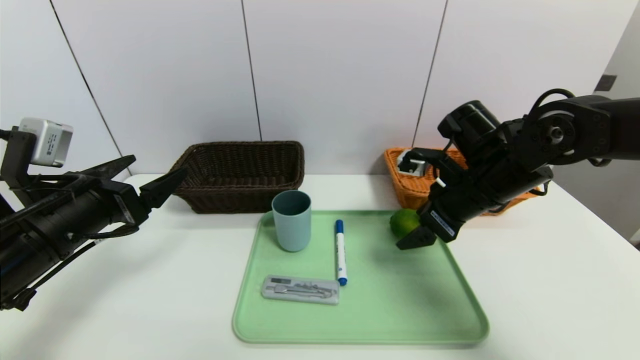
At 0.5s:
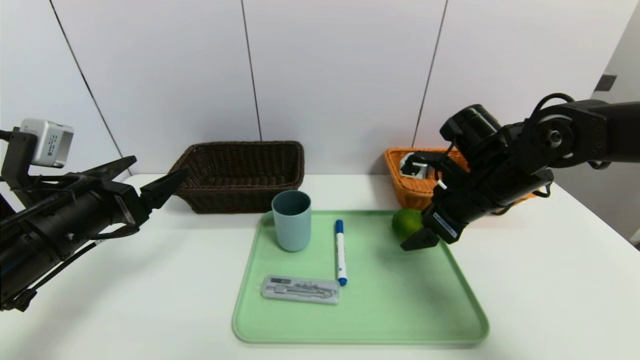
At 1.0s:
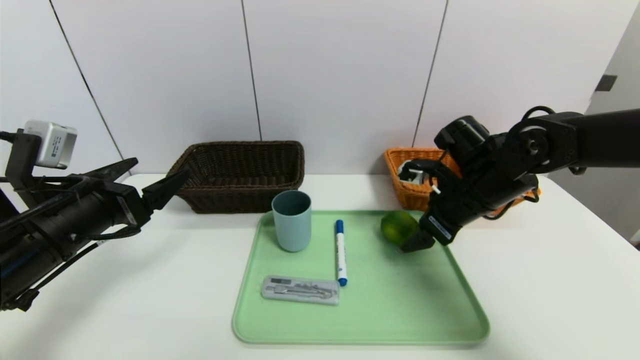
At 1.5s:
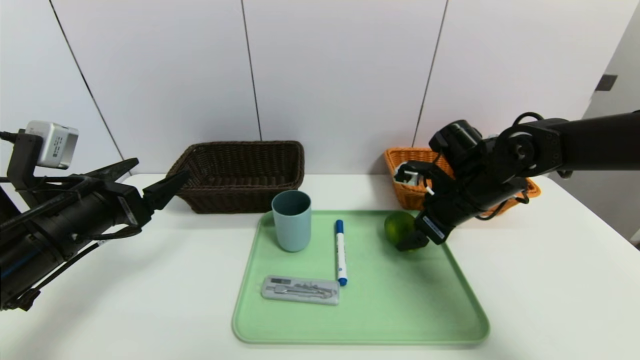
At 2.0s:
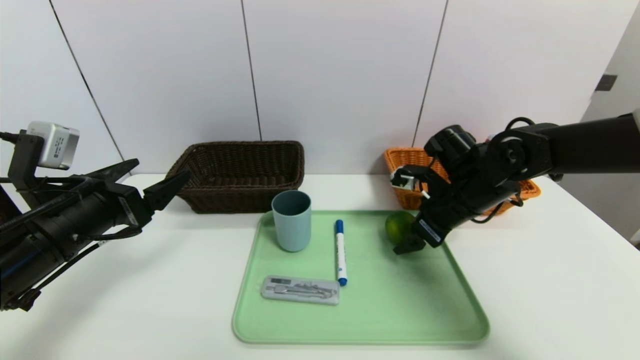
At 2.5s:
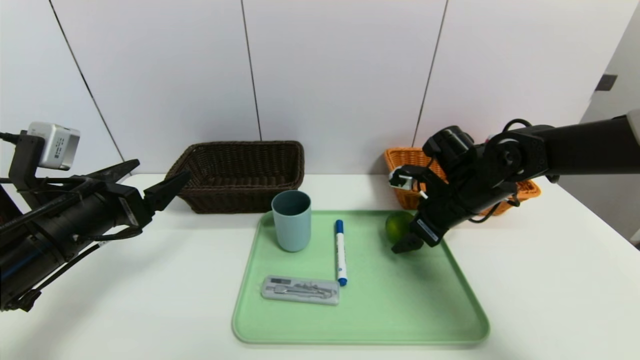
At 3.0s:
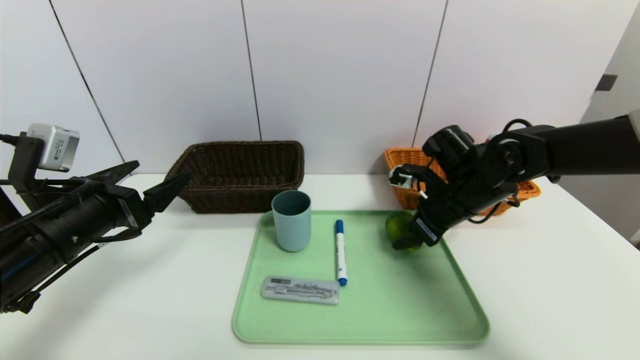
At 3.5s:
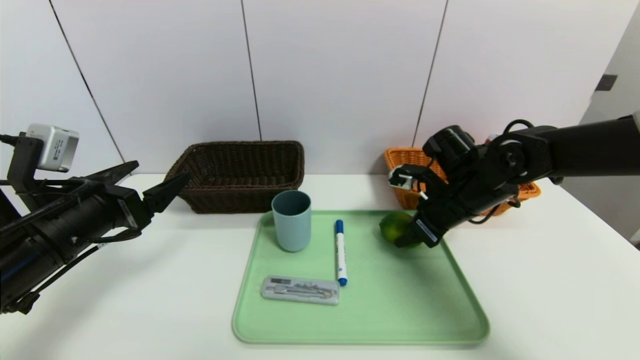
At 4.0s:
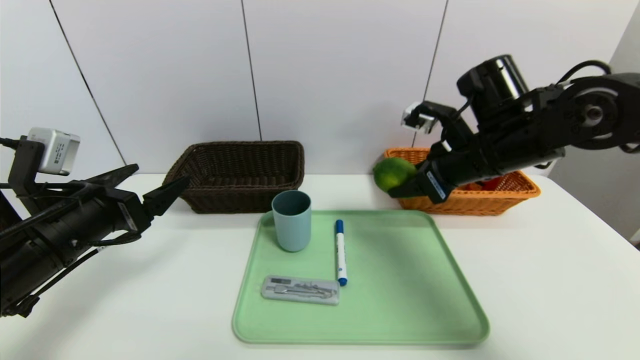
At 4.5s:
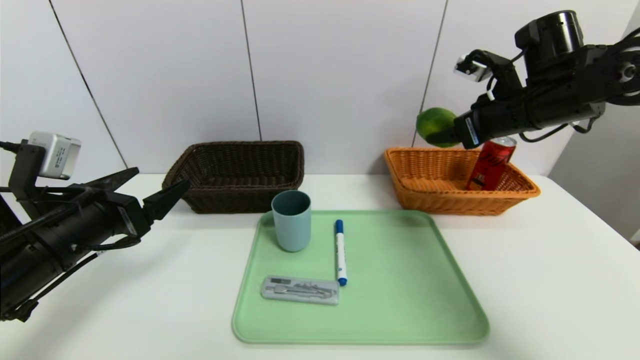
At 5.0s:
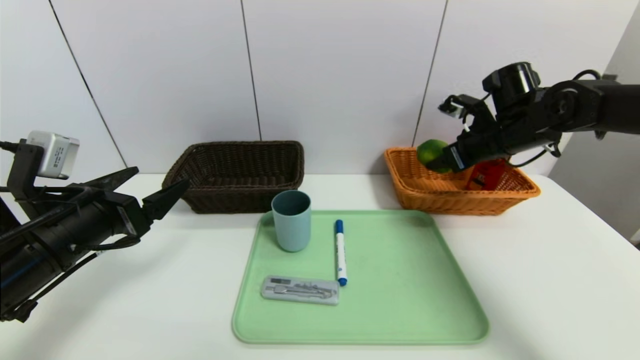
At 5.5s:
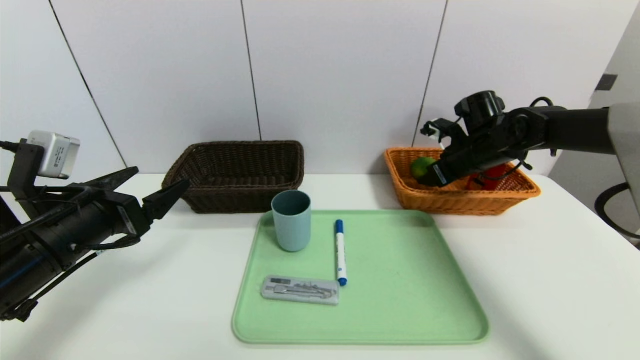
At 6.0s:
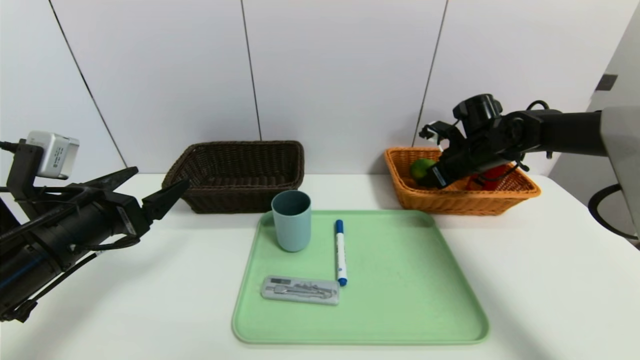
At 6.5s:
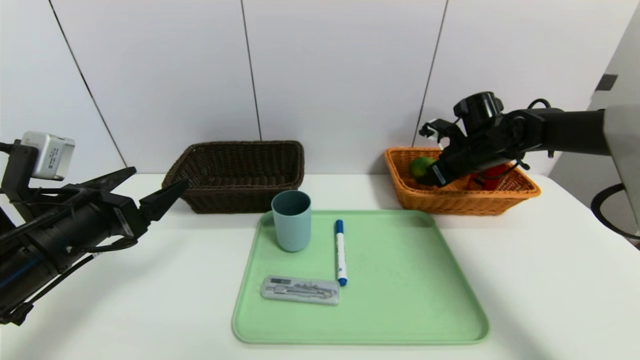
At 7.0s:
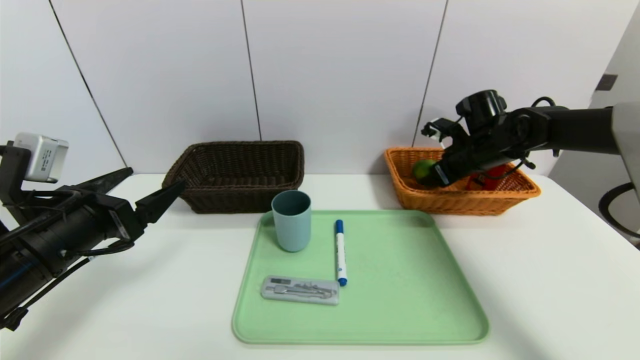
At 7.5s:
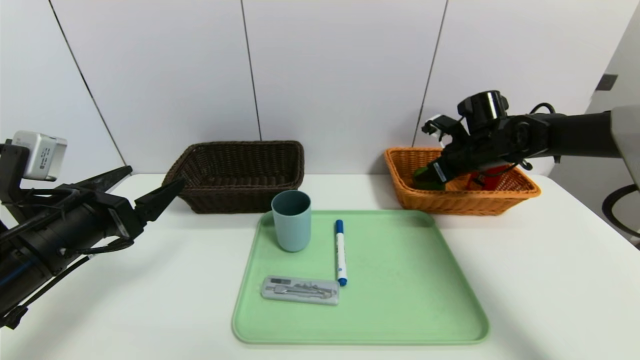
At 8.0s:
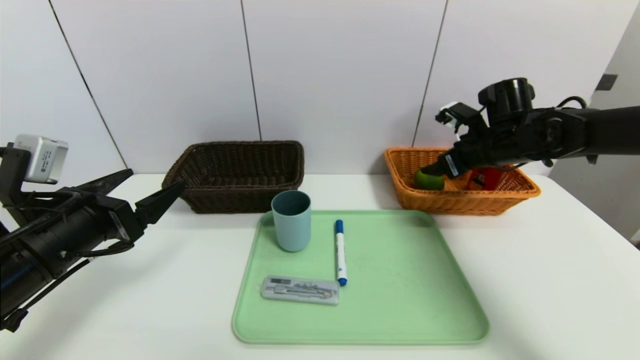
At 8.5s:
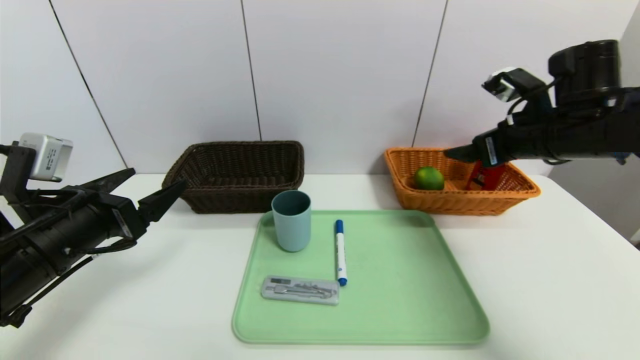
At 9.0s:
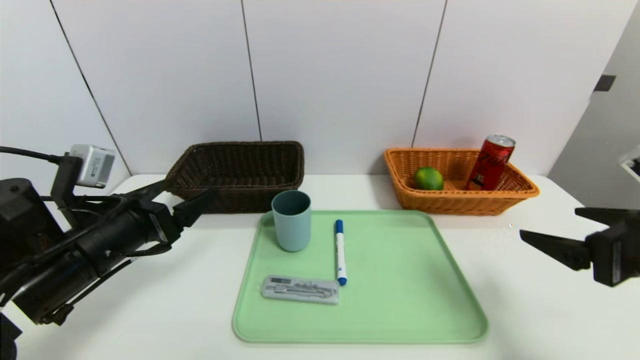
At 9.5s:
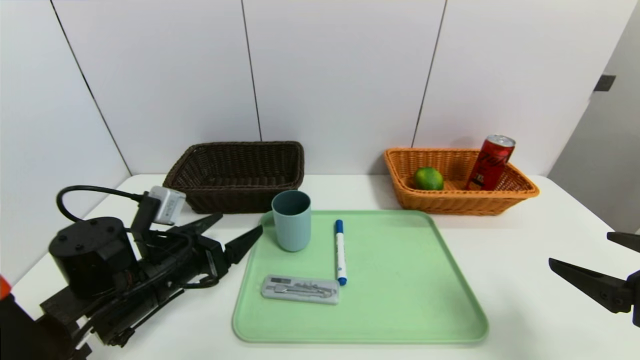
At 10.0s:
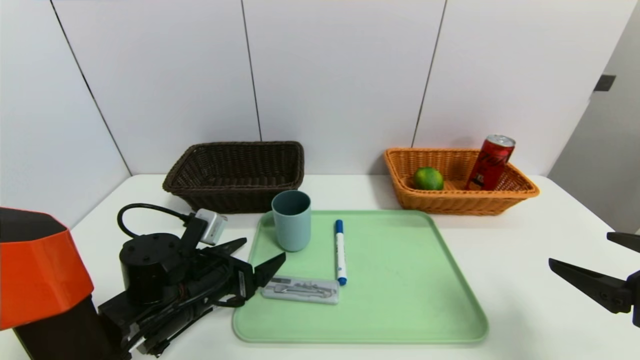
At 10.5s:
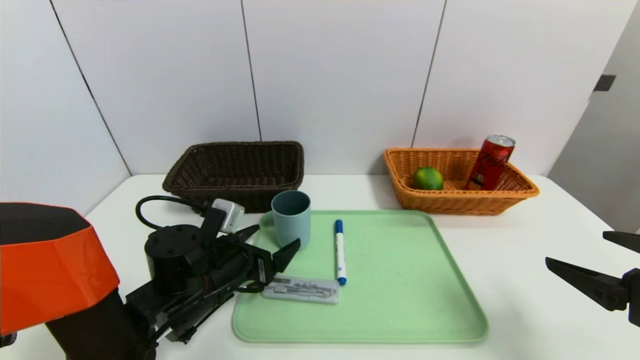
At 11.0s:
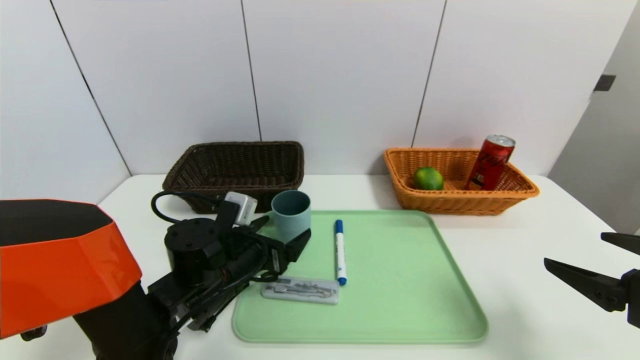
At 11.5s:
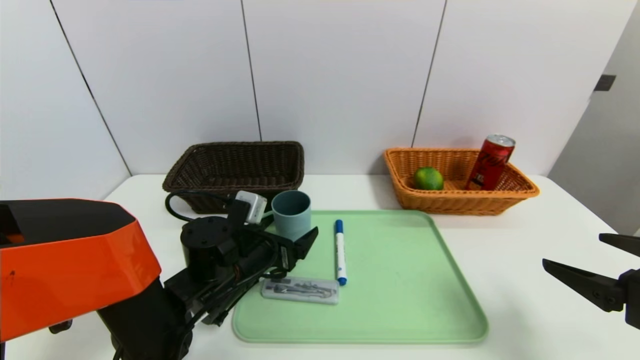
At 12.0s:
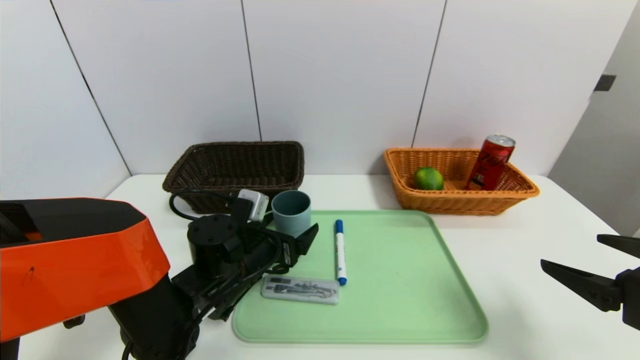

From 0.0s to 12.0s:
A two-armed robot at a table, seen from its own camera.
Task of the whole recording: place the food in the right basket with the right gripper, and place the non food items in the left basket with the left gripper.
Step, from 0.0s to 8.5s: Grasp the lime and put it in the right basket.
From 0.0s to 2.0s: The right gripper ends up some 5 cm from where it was.
From 2.0s to 4.0s: The right gripper travels upward by approximately 10 cm, and closes its fingers.
From 4.0s to 6.0s: The right gripper moves forward, to the right and downward, some 15 cm.
From 6.0s to 8.0s: The right gripper ends up some 5 cm from where it was, and opens its fingers.
From 8.0s to 10.0s: The right gripper heads backward, covering about 30 cm. Meanwhile the left gripper shifts roughly 15 cm downward and to the right.
From 10.0s to 12.0s: The left gripper moves to the right, approximately 5 cm.

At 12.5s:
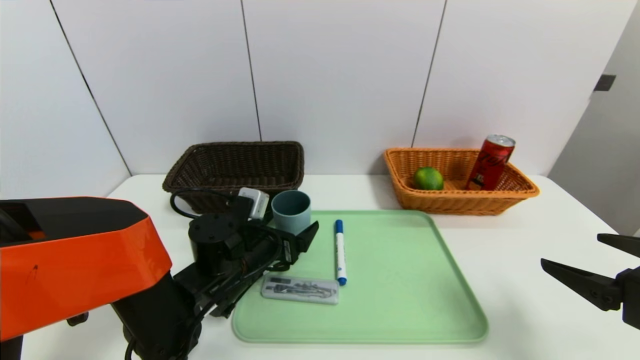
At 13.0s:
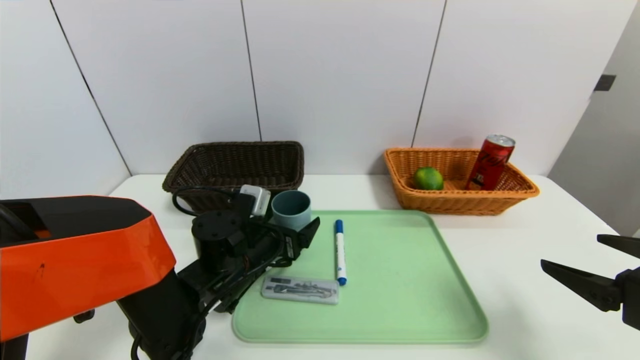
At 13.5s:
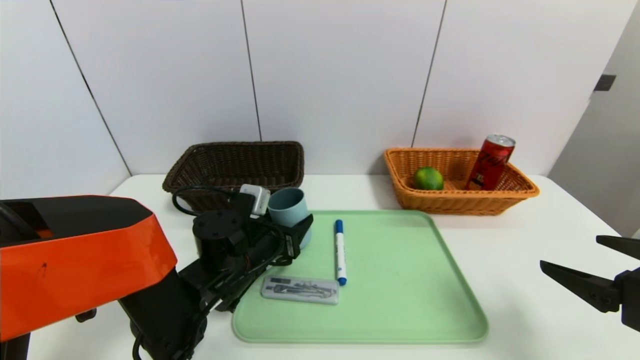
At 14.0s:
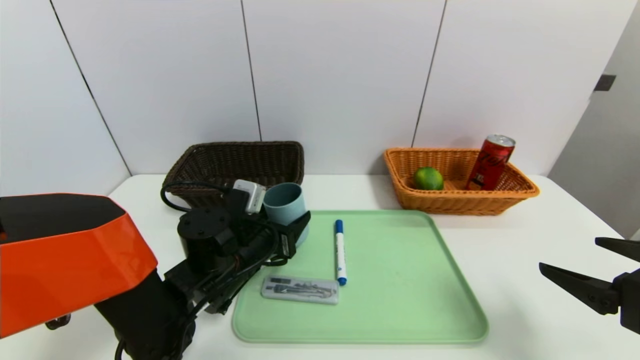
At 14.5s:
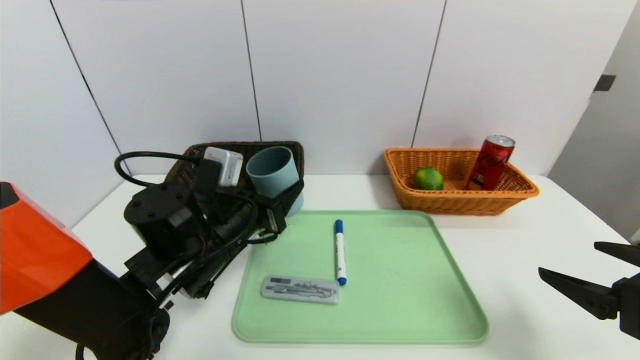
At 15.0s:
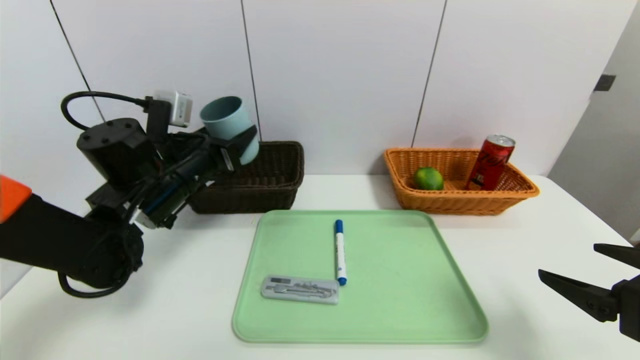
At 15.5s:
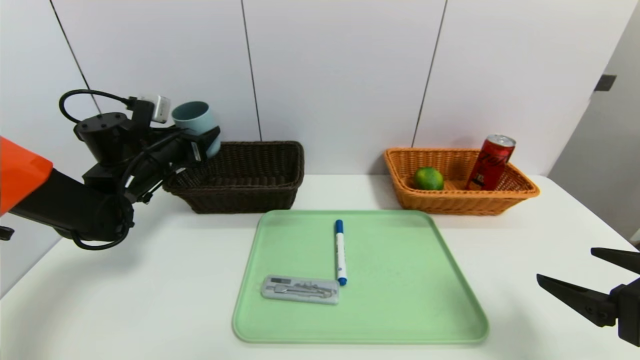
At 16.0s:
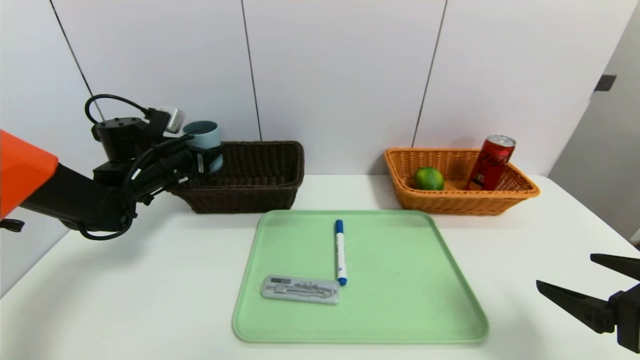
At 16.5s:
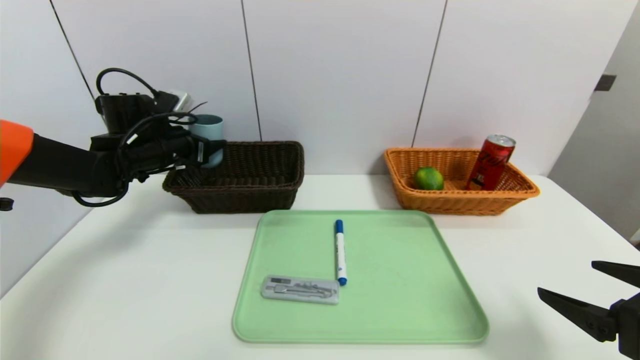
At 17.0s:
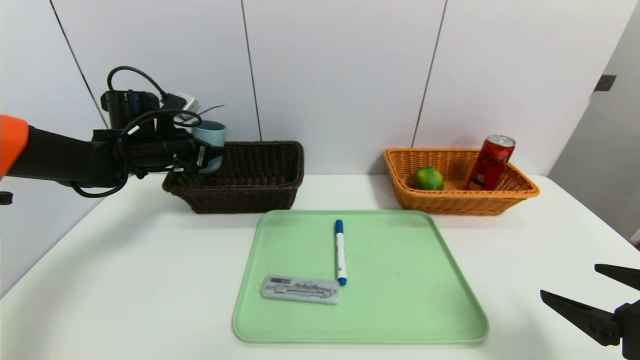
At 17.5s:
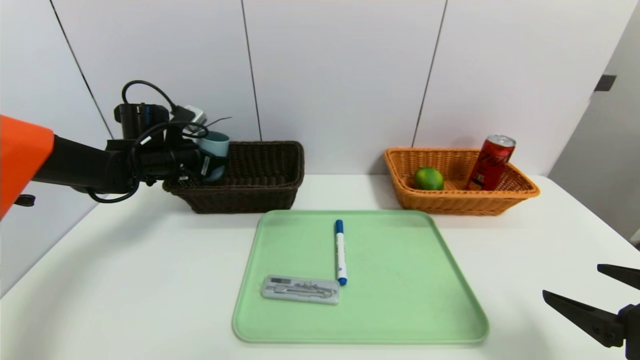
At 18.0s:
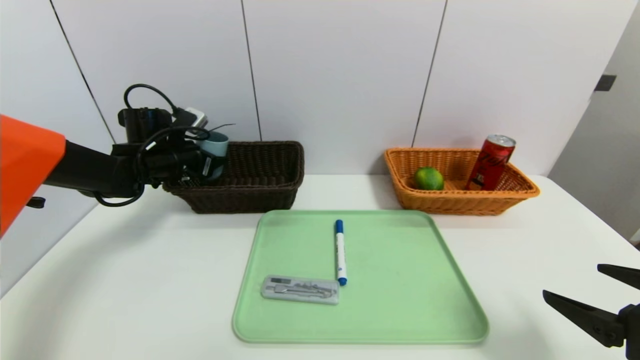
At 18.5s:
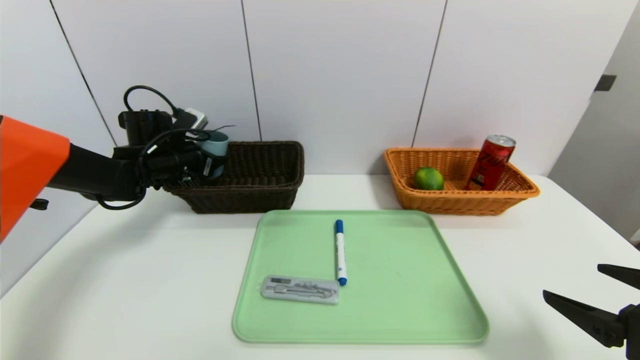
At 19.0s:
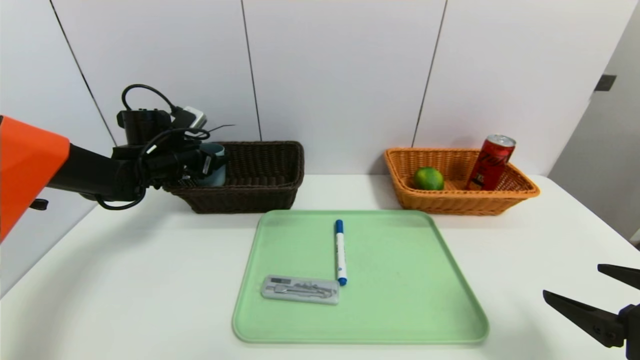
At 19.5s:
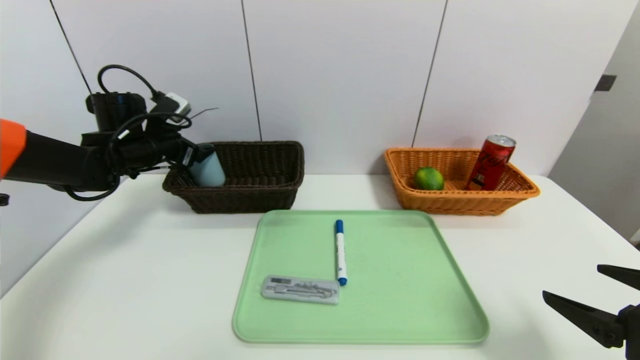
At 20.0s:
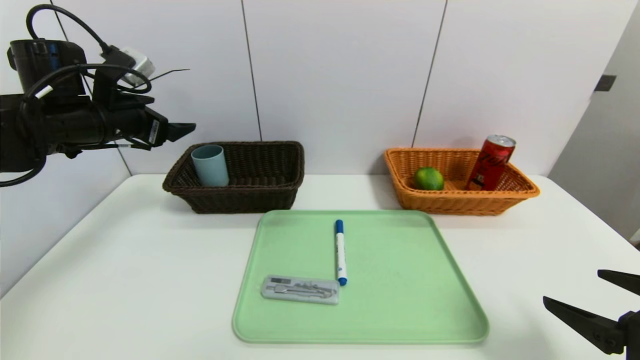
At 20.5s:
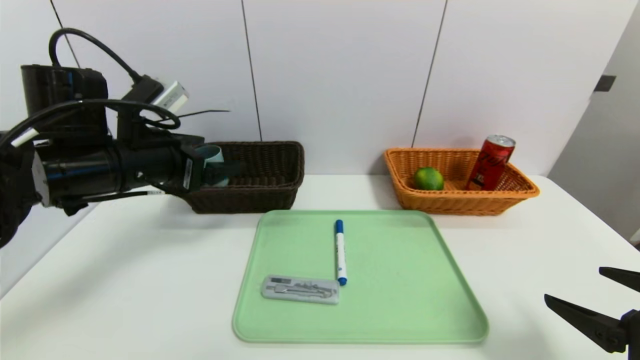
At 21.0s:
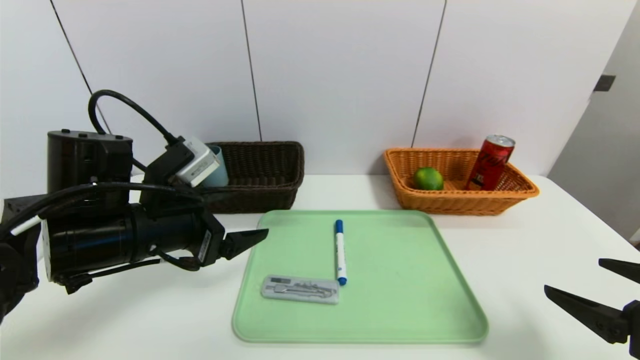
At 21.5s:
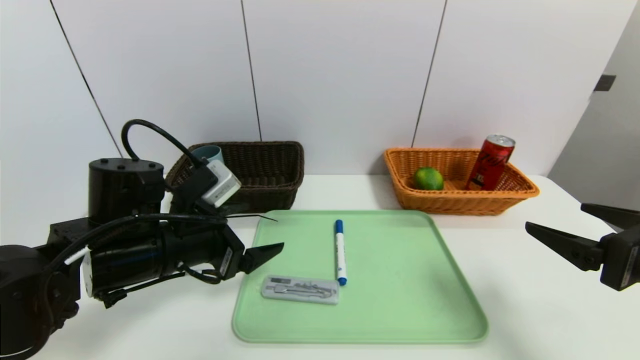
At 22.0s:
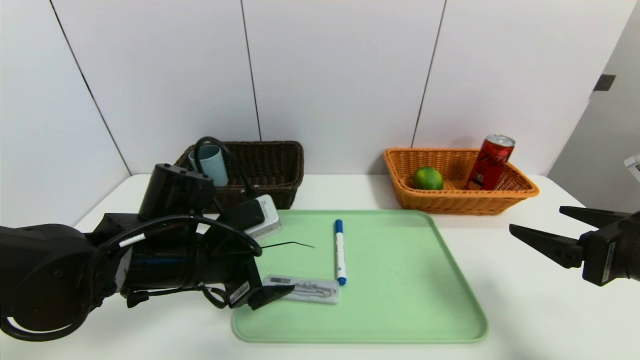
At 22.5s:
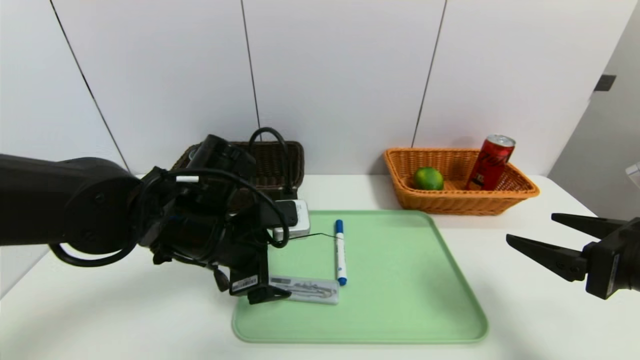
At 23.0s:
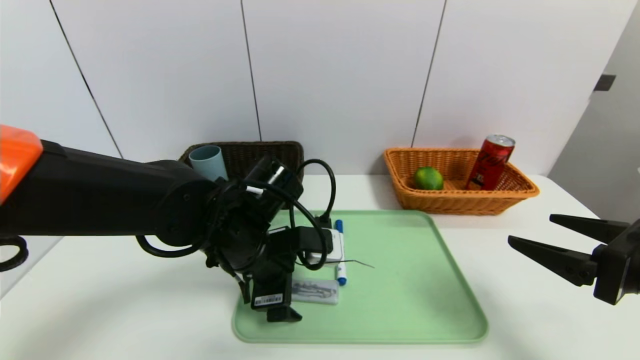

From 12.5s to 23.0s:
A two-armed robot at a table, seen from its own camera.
Task of the whole recording: place the food in the right basket with the right gripper, and place the non food items in the left basket with the left gripper.
Step, from 12.5s to 19.5s: Grasp the blue cup and put it in the left basket.
From 12.5s to 14.5s: The left gripper travels upward by roughly 10 cm, and closes.
From 14.5s to 16.5s: The left gripper goes some 20 cm forward and to the left.
From 16.5s to 19.0s: The grippers make only small movements.
From 19.0s to 21.0s: The left gripper travels backward and to the right by roughly 25 cm.
From 21.0s to 23.0s: The left gripper goes roughly 10 cm to the right.
